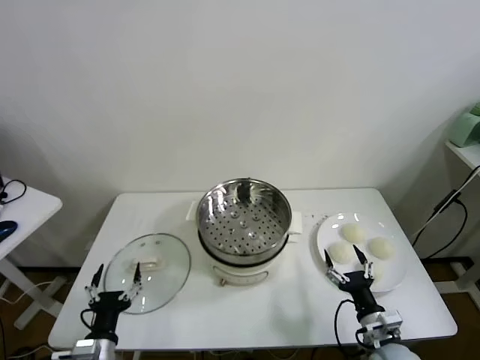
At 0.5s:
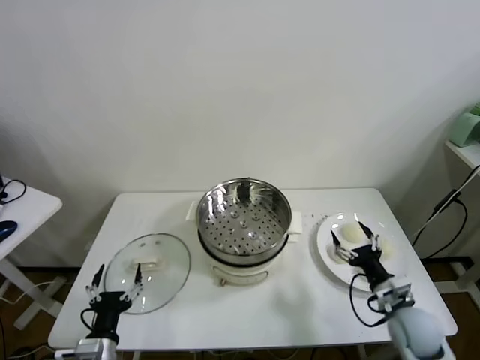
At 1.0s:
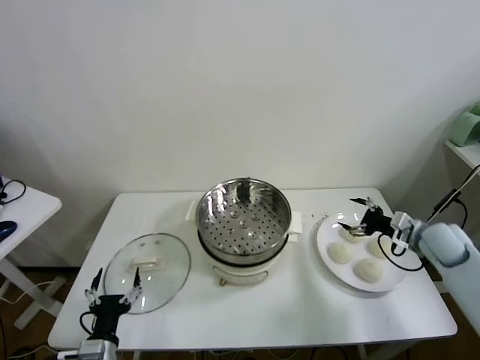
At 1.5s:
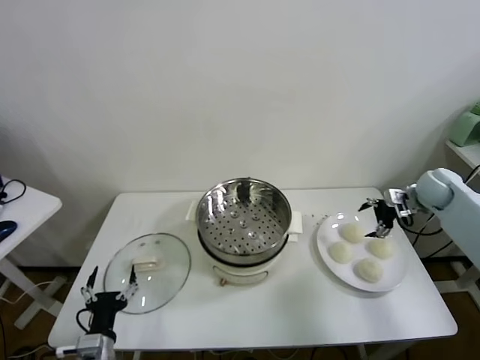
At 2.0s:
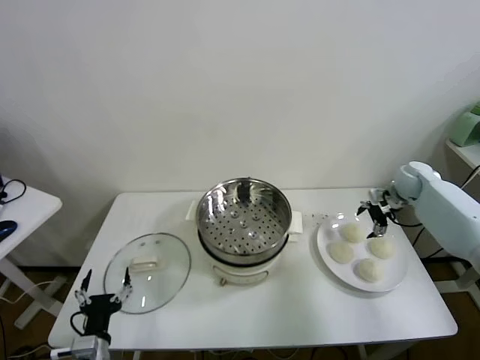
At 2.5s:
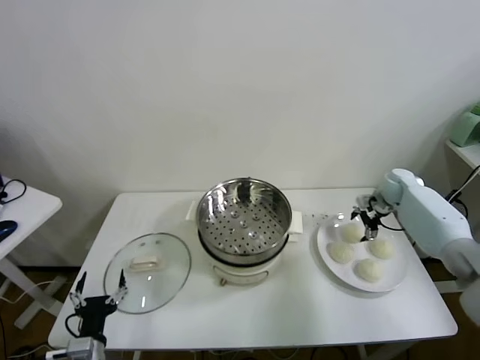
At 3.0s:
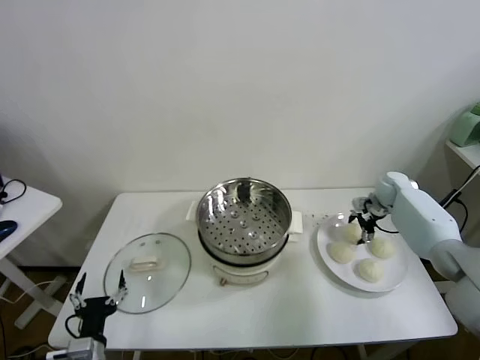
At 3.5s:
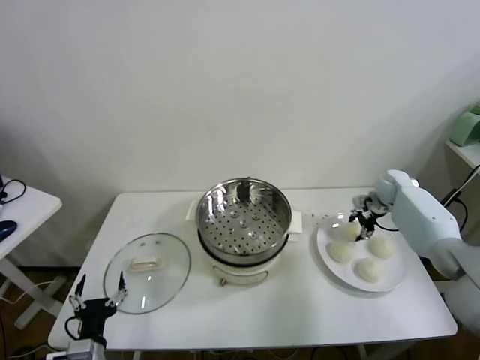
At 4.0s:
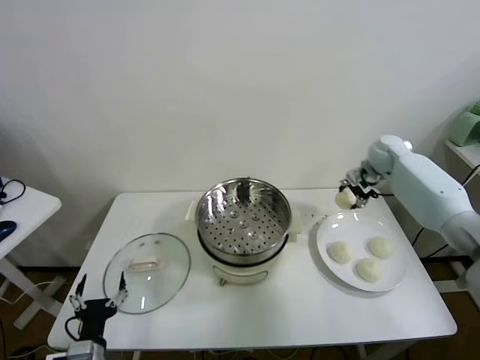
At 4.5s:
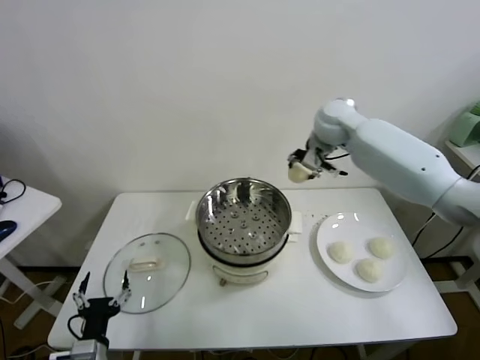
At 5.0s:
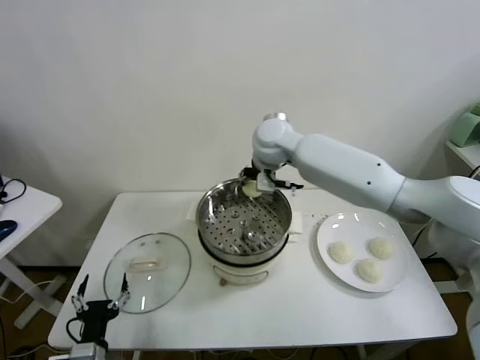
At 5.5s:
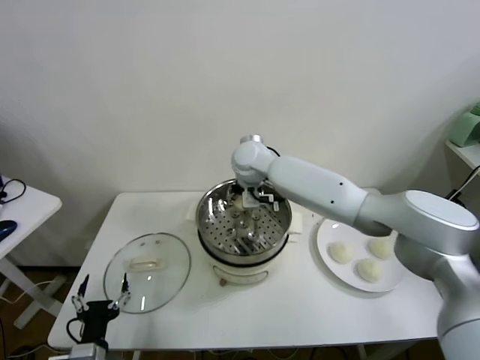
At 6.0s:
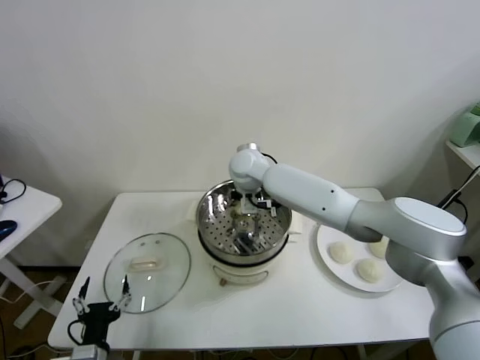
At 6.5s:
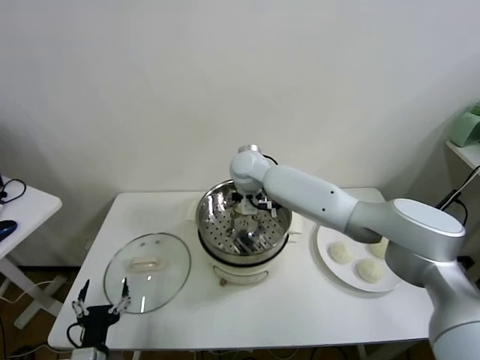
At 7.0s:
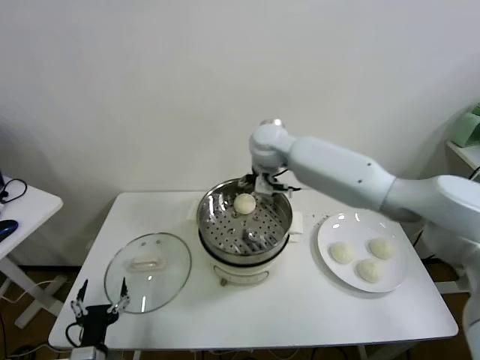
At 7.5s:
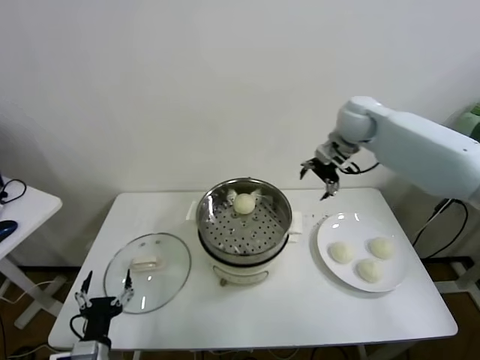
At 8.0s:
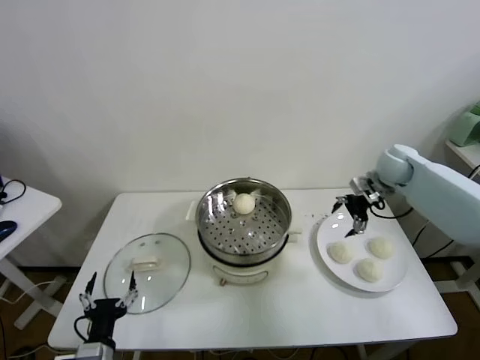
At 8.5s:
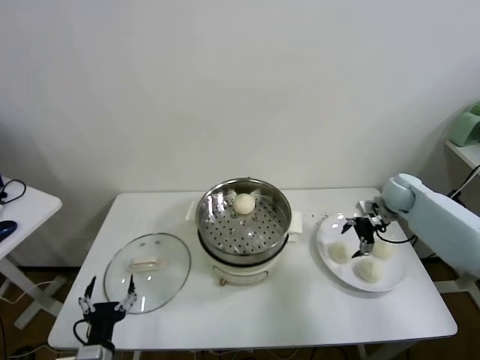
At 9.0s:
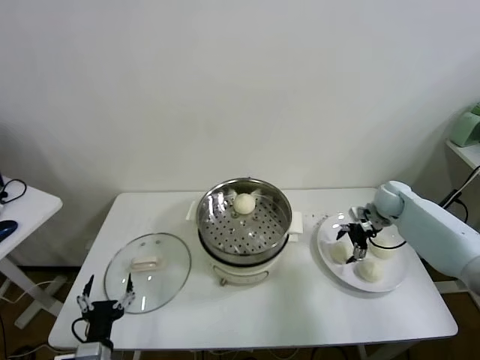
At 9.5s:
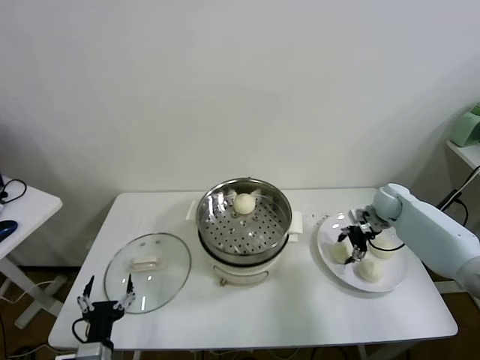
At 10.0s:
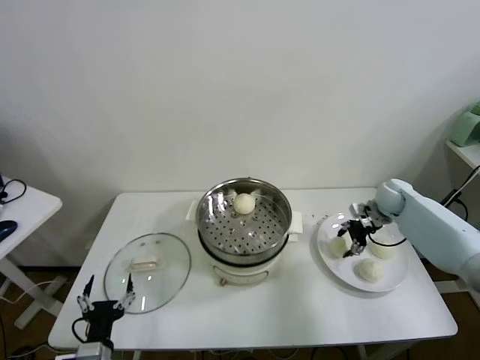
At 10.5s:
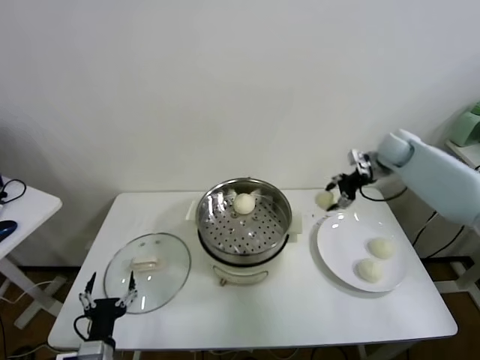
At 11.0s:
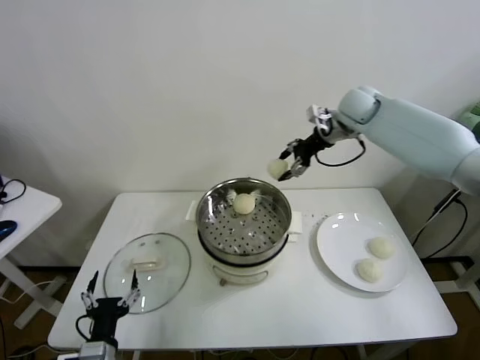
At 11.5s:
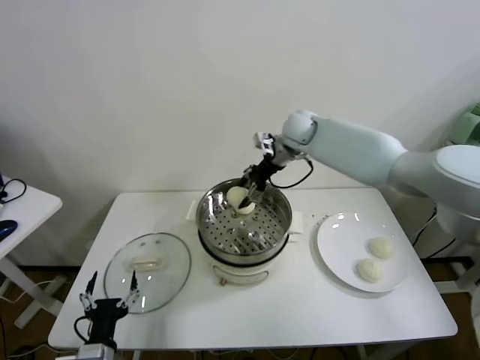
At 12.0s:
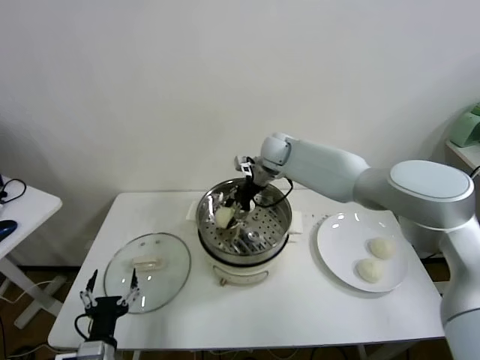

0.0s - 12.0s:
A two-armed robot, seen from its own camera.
Task of the whole recording: take steamed baozi put them in steamer.
Step, 0.0s - 3.0s: Grasp the baozi in the plate with right gripper.
Step, 3.5s - 6.5s: Place the baozi on the steamer with right gripper.
Step, 7.0s - 9.5s: Grasp the baozi in the plate with right gripper.
2.0s - 4.0s: The right gripper shifts approximately 15 cm to the left and upward, and closes up.
4.0s - 6.0s: The right gripper is displaced to the left by approximately 35 cm.
6.0s - 8.0s: The right gripper heads to the right, covering about 40 cm, and opens its fingers.
8.0s - 10.0s: The right gripper is displaced downward by roughly 10 cm, and closes its fingers.
10.0s - 12.0s: The right gripper heads to the left, covering approximately 30 cm.

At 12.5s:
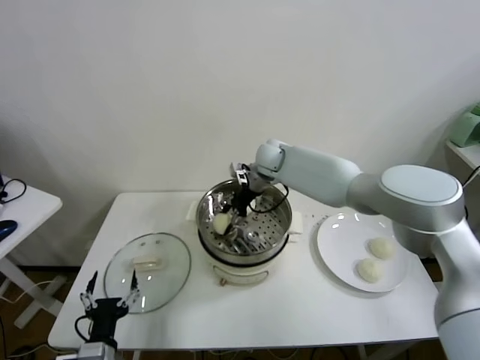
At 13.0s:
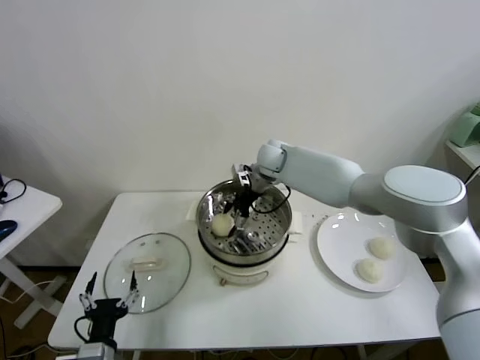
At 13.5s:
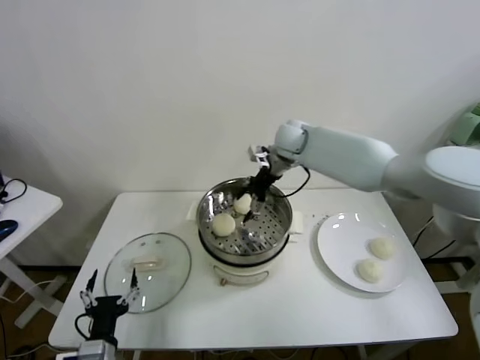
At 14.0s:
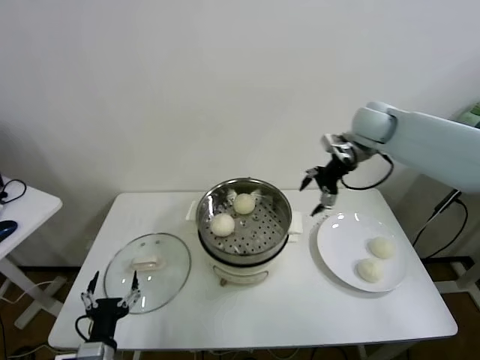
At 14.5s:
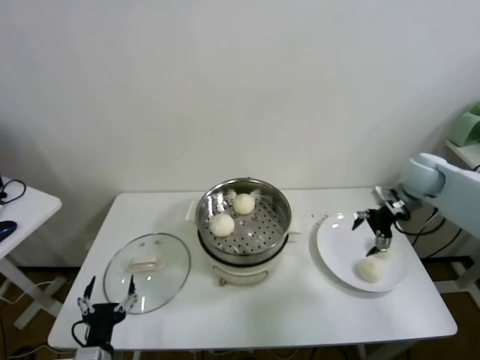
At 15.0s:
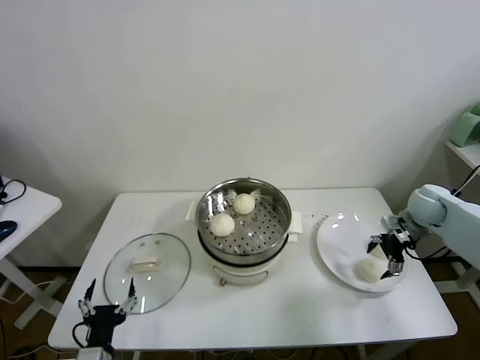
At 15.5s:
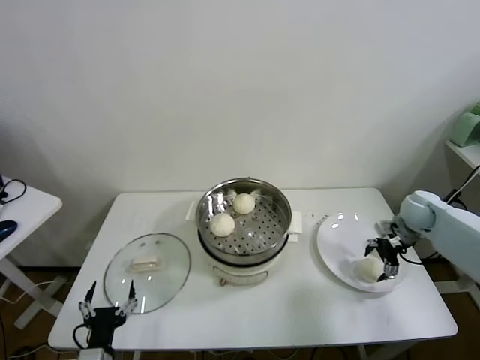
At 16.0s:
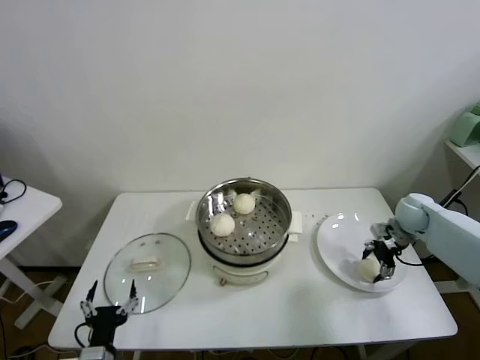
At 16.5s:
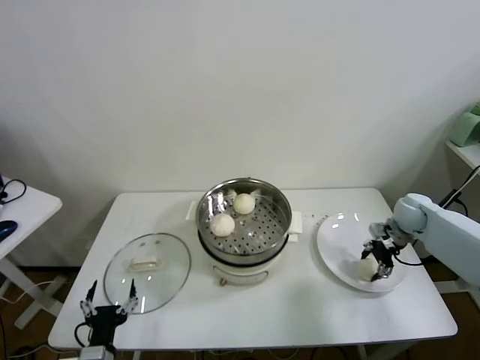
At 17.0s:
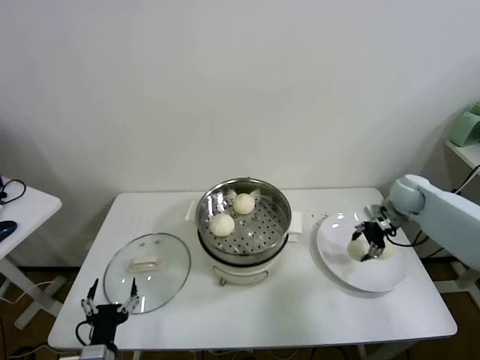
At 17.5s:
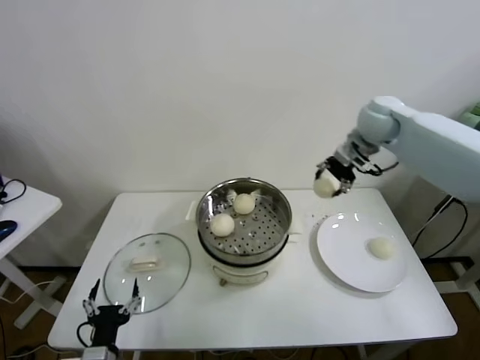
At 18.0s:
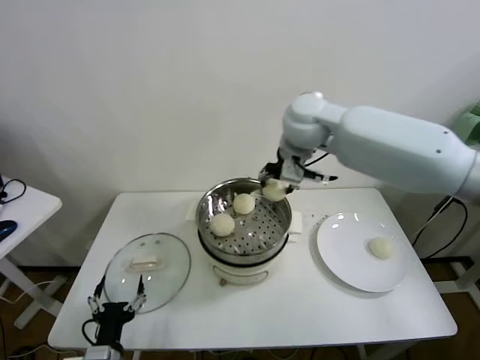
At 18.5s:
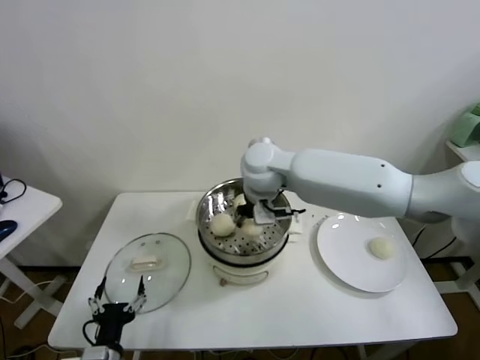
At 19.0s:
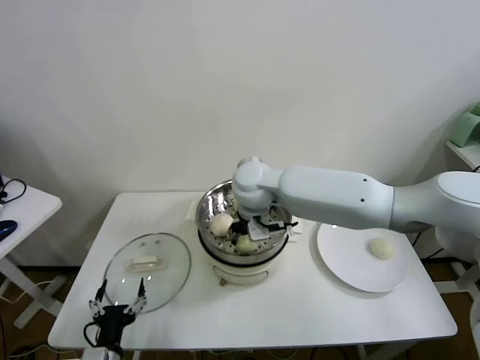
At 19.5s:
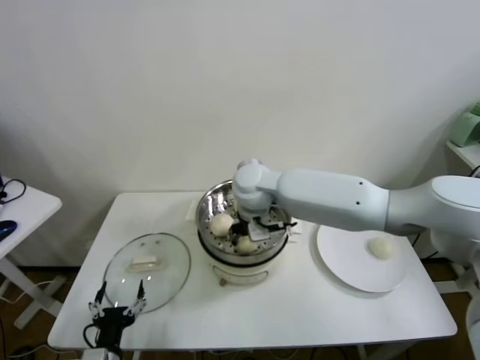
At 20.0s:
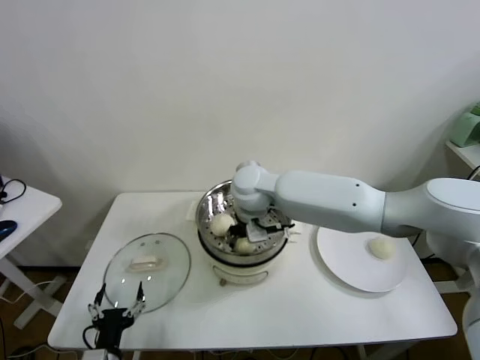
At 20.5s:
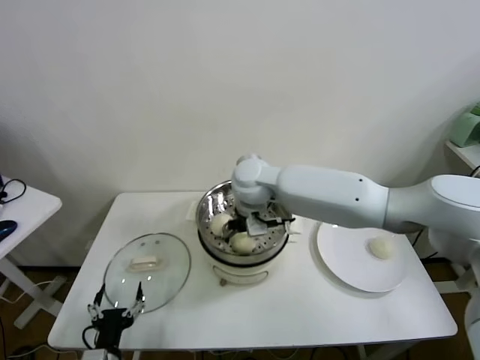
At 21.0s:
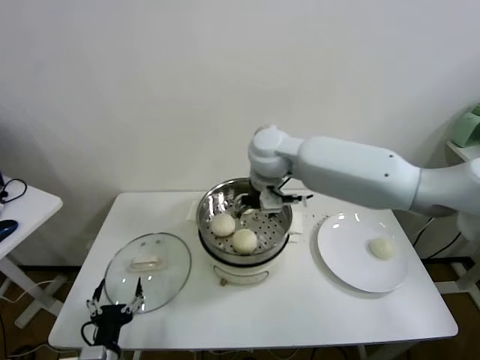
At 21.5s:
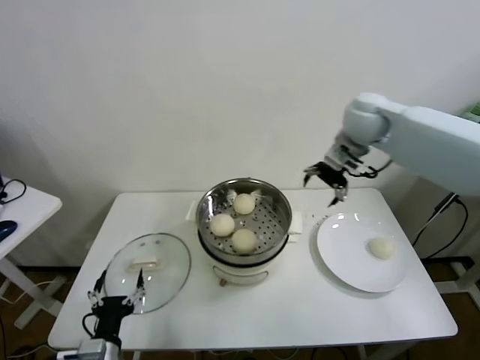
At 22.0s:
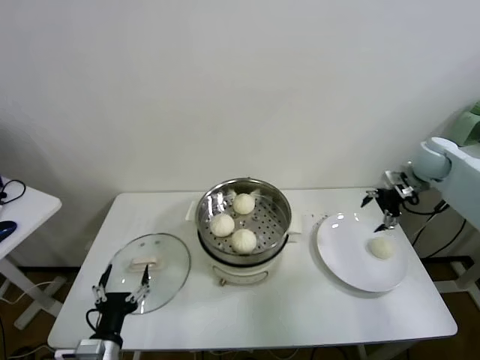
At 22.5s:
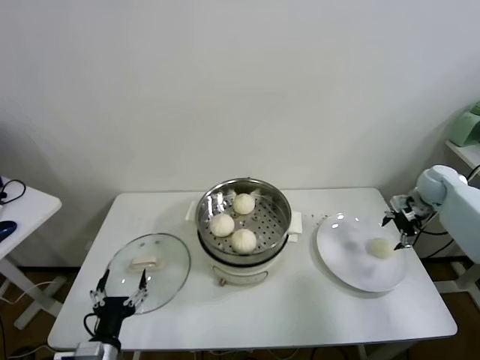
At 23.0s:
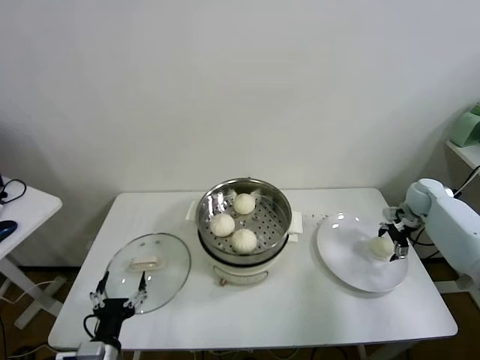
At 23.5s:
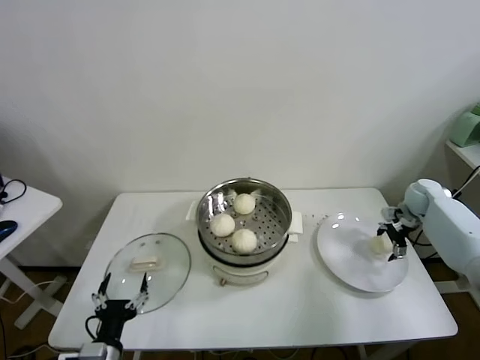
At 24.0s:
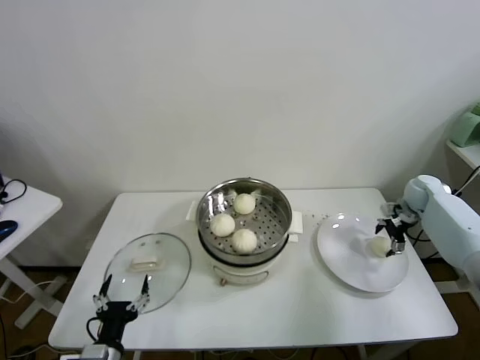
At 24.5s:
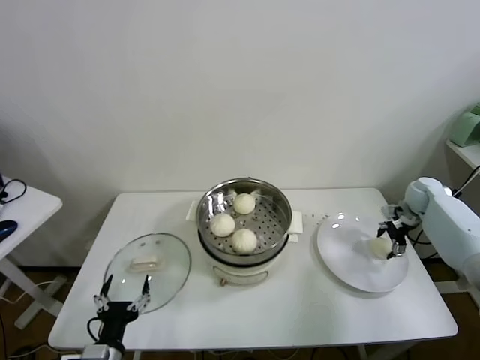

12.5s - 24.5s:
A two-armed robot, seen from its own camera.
Task of the whole recording: take steamed baozi put them in steamer.
Step, 13.5s - 16.0s: Grasp the baozi in the plate with right gripper.
Step, 16.5s - 20.5s: Place the baozi on the steamer with right gripper.
12.5s - 14.5s: The right gripper heads to the right, covering approximately 35 cm, and opens up.
14.5s - 16.5s: The right gripper heads downward, covering approximately 10 cm, and closes up.
16.5s - 18.5s: The right gripper is displaced to the left and upward by some 40 cm.
18.5s - 20.5s: The right gripper opens its fingers.
20.5s - 22.5s: The right gripper is displaced to the right by approximately 50 cm.
22.5s - 24.5s: The right gripper heads downward, covering about 5 cm.

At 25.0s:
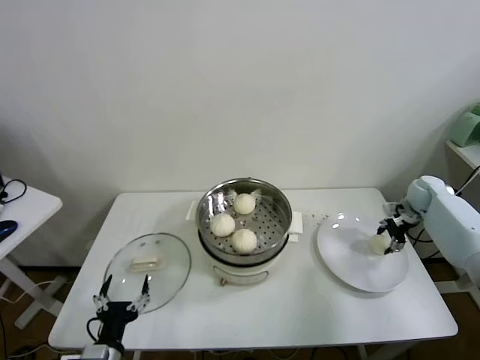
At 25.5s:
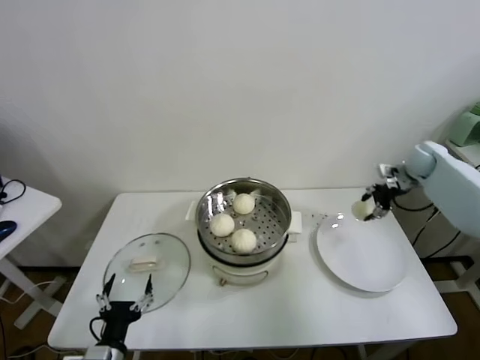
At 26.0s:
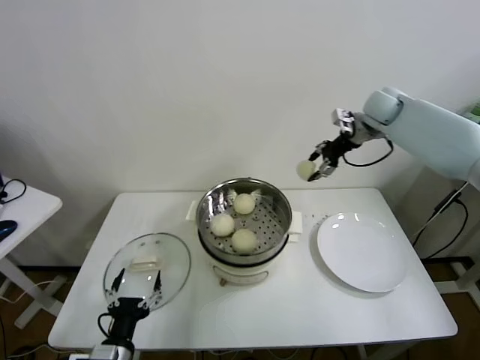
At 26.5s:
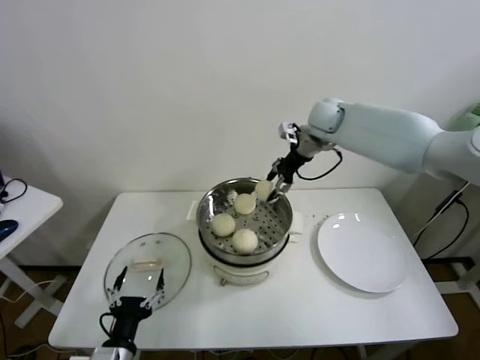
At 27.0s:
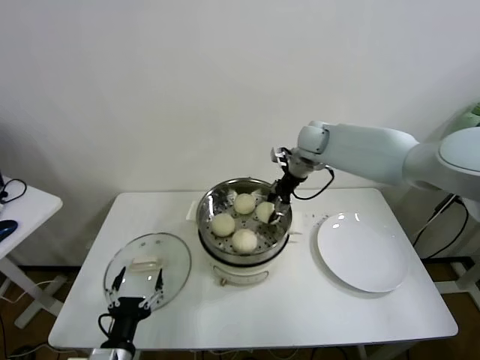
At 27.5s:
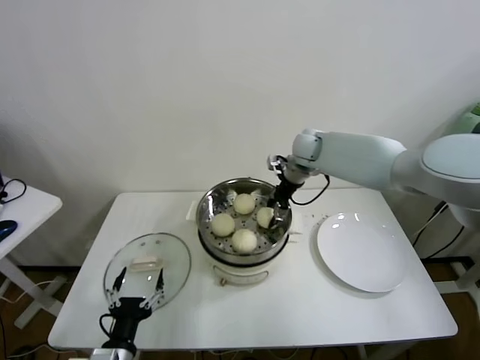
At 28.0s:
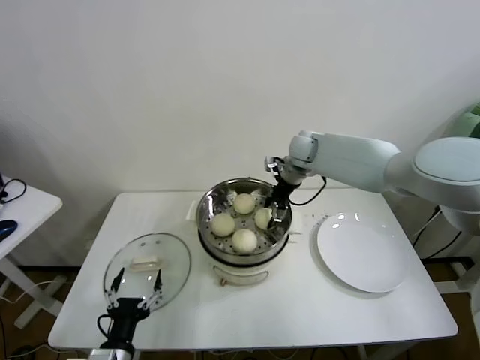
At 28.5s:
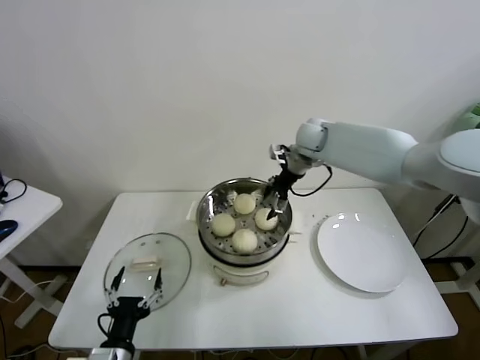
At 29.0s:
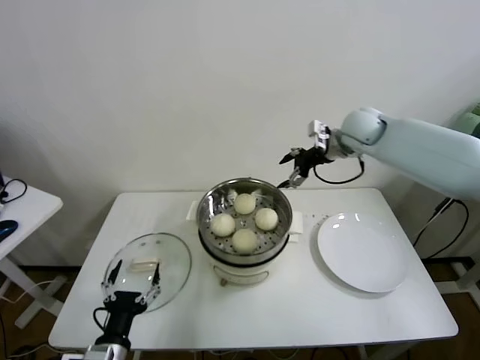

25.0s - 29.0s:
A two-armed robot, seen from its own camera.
Task of the whole recording: take steamed baozi put them in steamer.
Step, 25.0s - 28.0s: Place the baozi on the steamer with right gripper.
25.0s - 27.0s: The right gripper heads to the left and upward, covering some 35 cm.
27.0s - 29.0s: The right gripper heads to the right and upward, covering about 10 cm, and opens its fingers.
